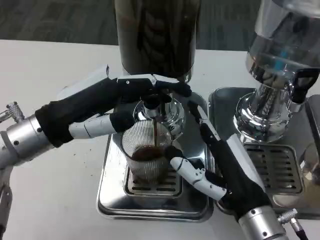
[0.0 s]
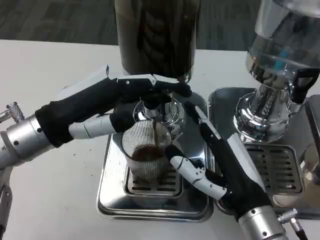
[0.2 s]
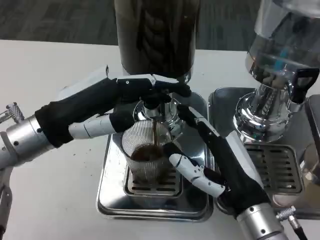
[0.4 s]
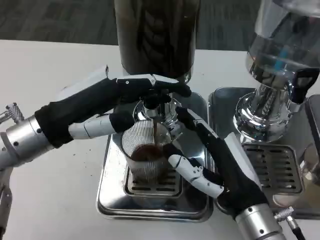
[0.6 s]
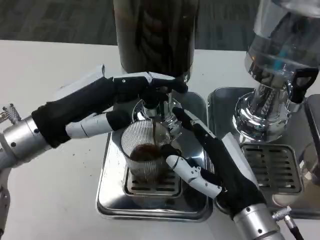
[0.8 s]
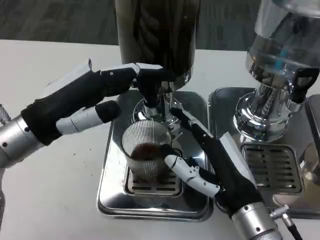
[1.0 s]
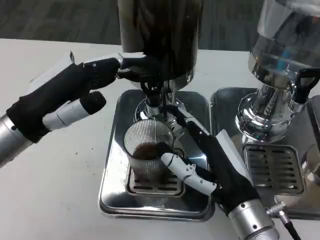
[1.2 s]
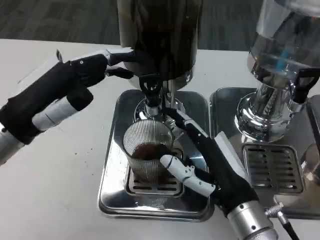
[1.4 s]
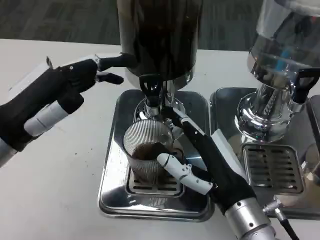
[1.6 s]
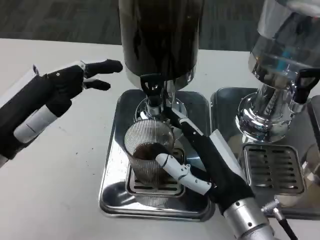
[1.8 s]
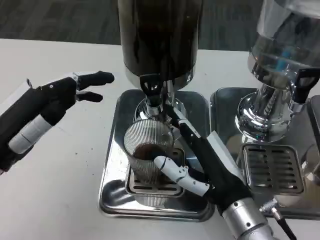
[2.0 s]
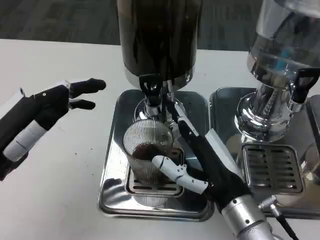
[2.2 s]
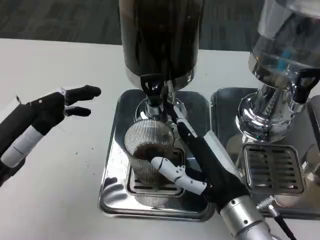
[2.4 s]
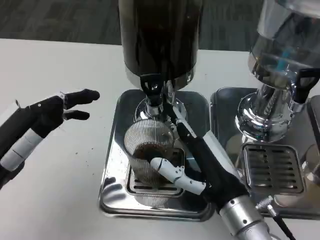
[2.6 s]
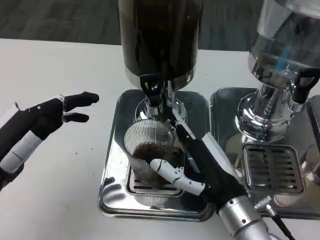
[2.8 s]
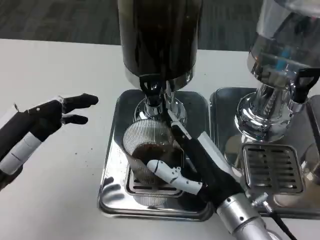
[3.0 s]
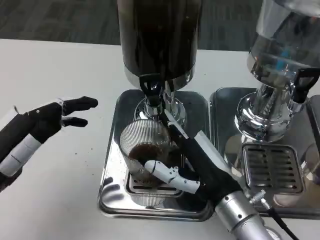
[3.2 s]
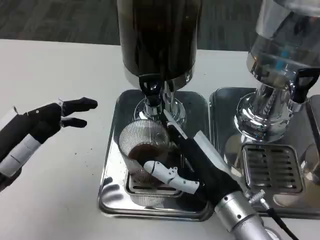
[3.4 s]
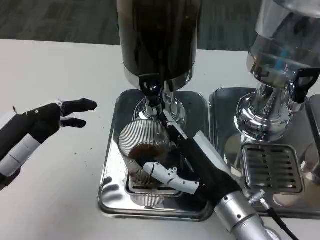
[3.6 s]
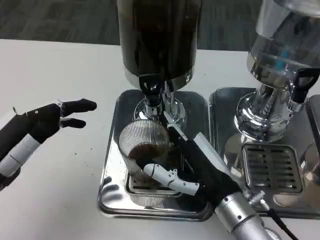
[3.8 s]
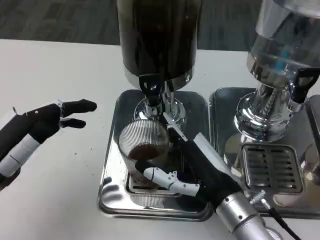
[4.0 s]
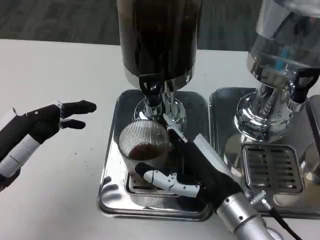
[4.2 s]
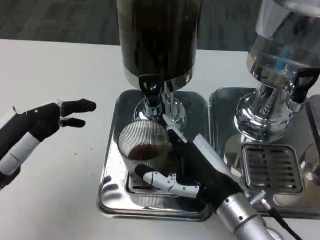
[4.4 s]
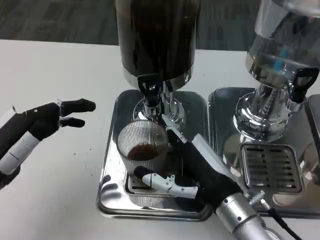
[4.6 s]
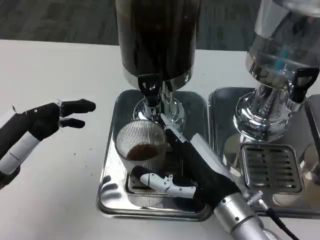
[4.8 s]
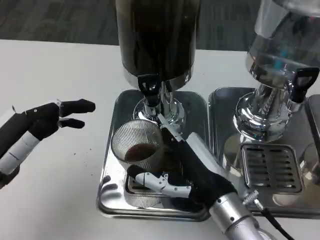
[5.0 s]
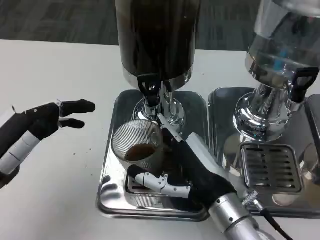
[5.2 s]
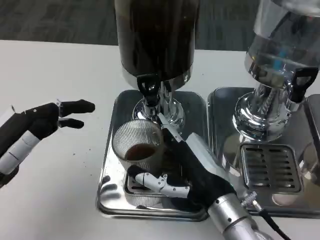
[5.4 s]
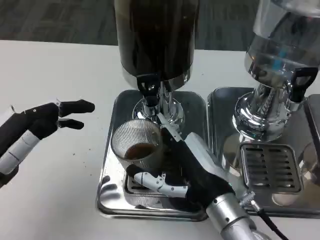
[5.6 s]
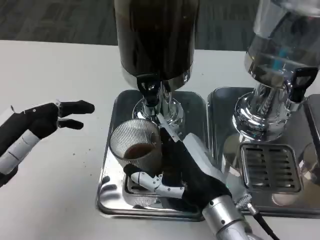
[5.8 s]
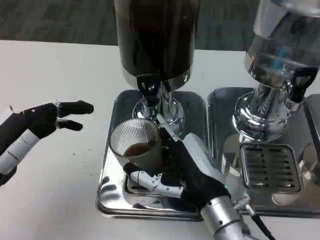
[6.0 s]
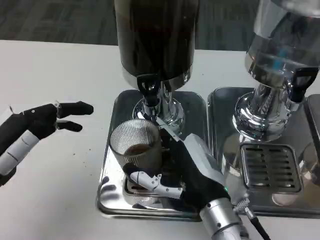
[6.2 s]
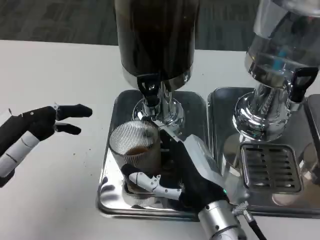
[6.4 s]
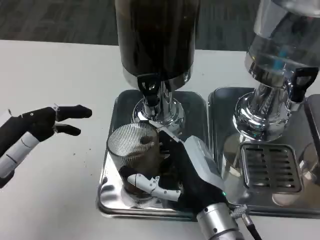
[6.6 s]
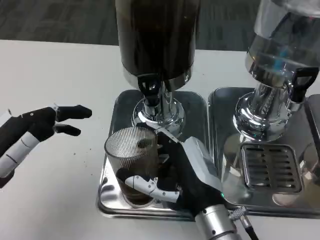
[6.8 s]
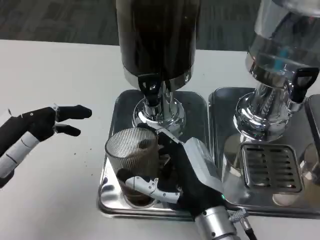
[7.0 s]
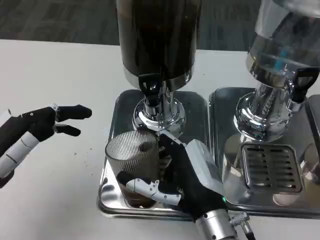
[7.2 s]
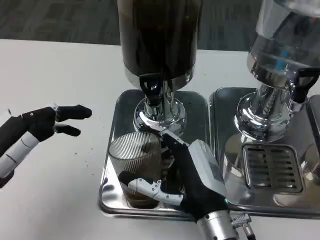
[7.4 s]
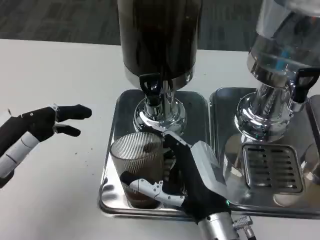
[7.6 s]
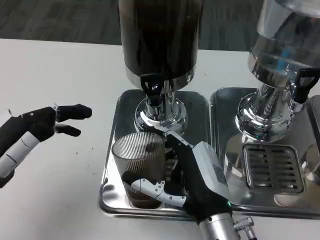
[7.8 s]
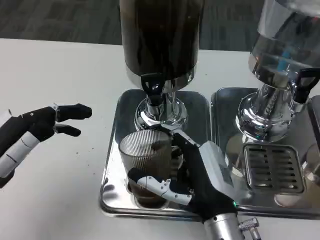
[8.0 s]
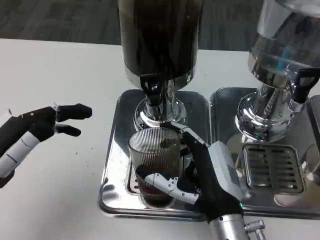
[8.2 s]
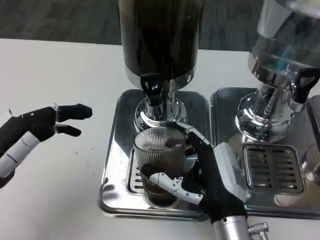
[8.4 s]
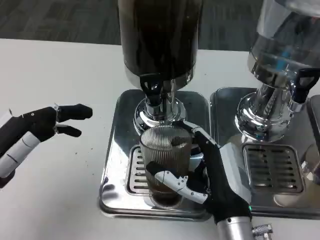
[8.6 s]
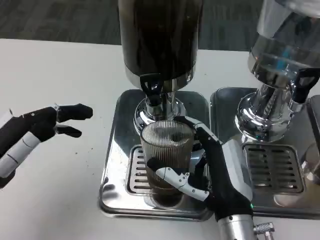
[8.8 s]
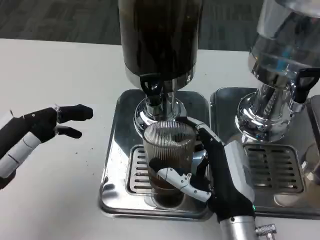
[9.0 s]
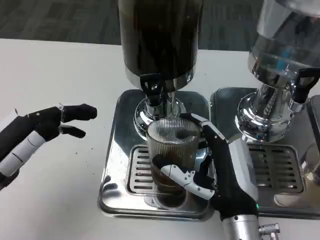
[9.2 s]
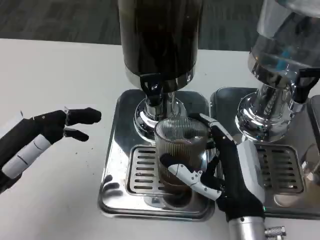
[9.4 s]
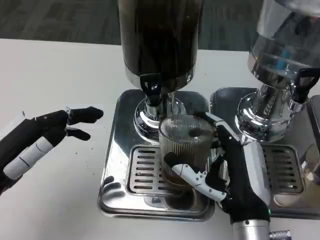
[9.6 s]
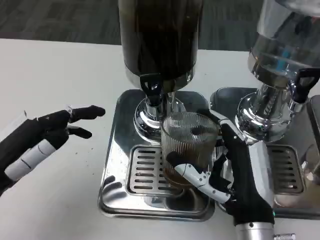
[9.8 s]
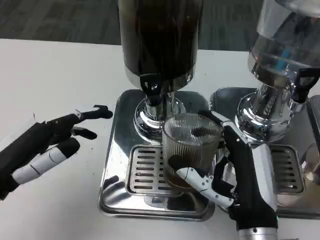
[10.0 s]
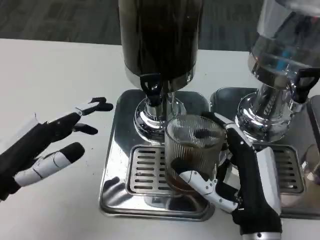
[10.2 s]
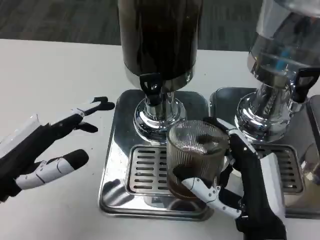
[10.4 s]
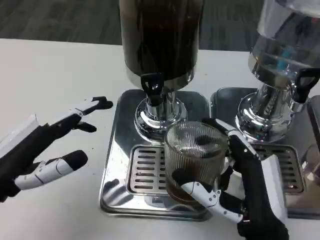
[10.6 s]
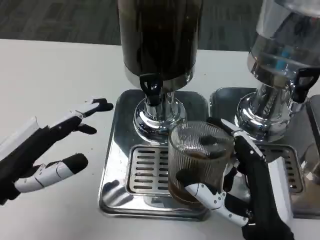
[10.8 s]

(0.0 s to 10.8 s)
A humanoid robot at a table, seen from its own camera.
Task of the whole recording: Grasp the cup under the faucet to collect the drink, then remove the cup.
1.6 s - 3.0 s: The left hand moves some 5 cm.
3.0 s - 6.2 s: The hands move only a little.
7.8 s - 9.2 s: There are only small adjustments of the hands.
9.2 s - 10.8 s: The right hand is displaced backward by some 5 cm.

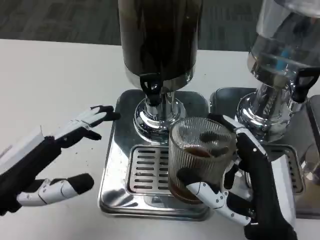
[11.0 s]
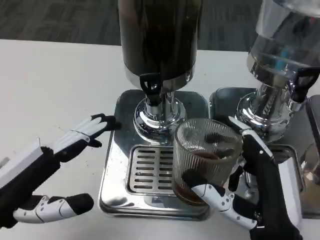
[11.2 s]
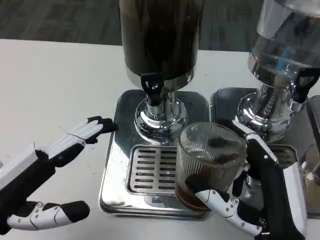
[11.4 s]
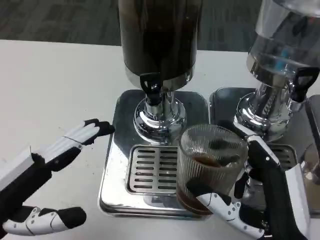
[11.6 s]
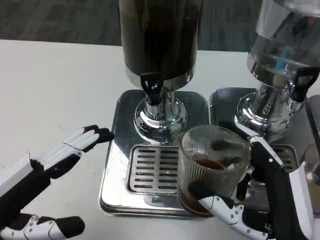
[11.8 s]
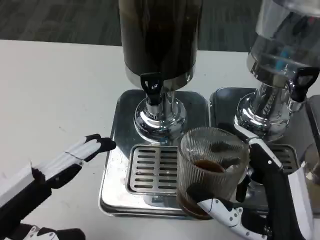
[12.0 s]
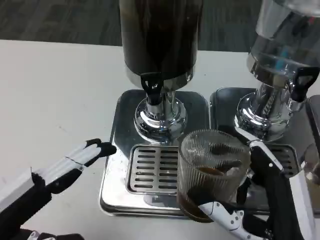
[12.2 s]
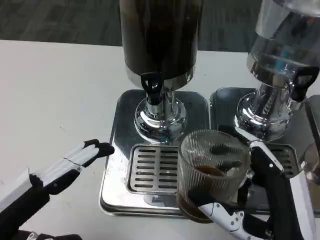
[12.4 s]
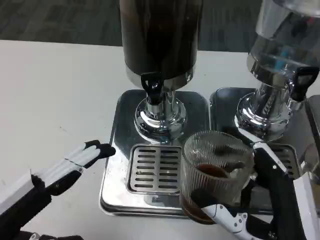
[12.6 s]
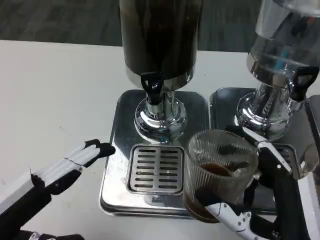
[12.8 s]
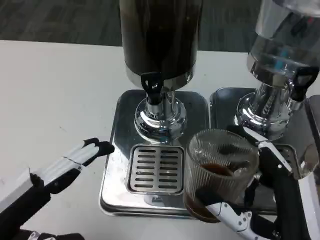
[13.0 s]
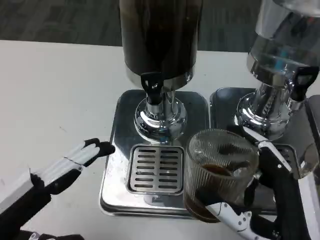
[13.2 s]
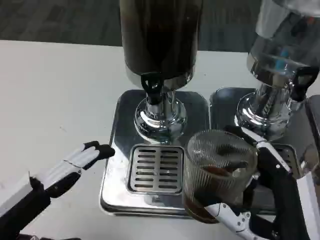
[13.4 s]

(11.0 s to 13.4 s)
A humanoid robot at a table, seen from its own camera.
Task of the whole recording: Grasp the cup under the faucet to collect the drink, then remove the cup.
11.0 s - 12.2 s: The left hand moves backward, about 5 cm.
12.2 s - 13.4 s: Neither hand changes place.

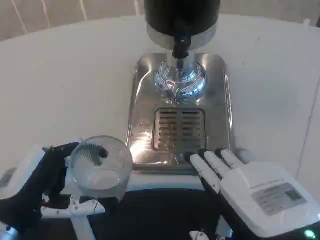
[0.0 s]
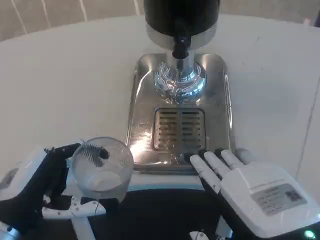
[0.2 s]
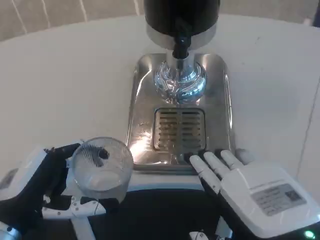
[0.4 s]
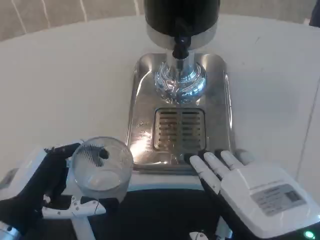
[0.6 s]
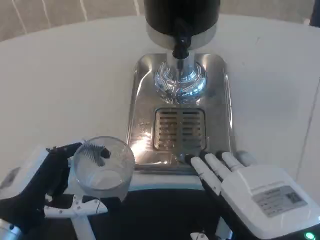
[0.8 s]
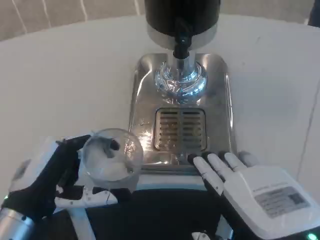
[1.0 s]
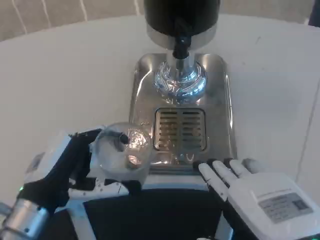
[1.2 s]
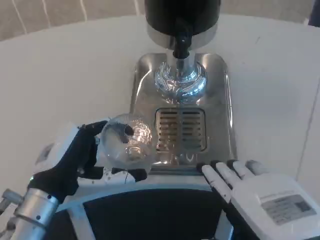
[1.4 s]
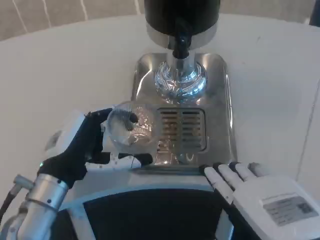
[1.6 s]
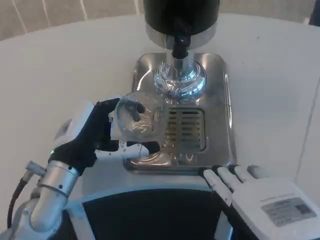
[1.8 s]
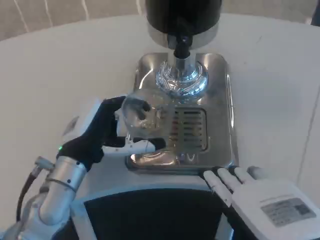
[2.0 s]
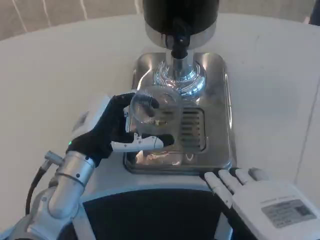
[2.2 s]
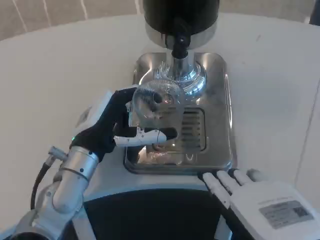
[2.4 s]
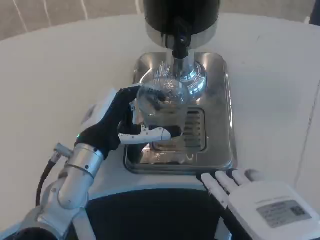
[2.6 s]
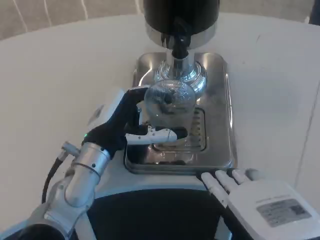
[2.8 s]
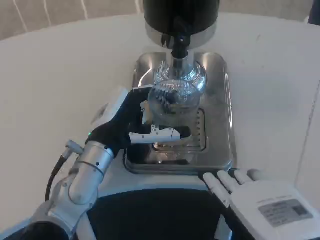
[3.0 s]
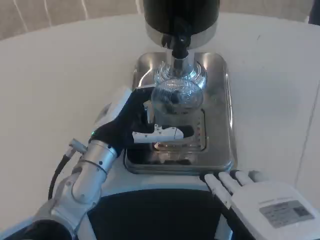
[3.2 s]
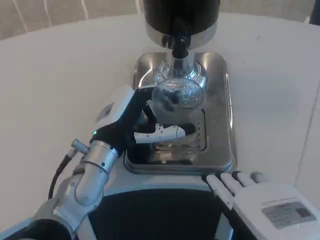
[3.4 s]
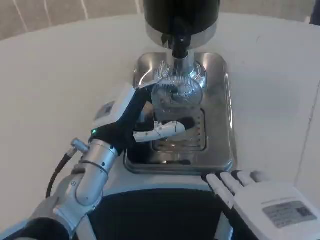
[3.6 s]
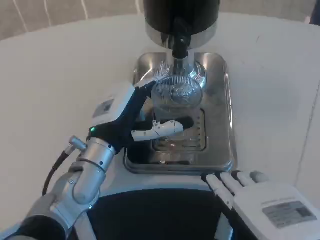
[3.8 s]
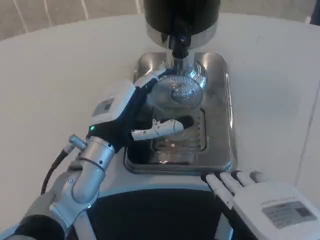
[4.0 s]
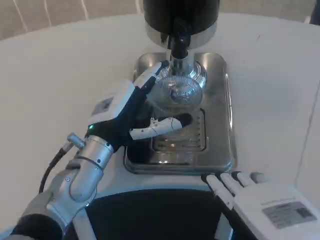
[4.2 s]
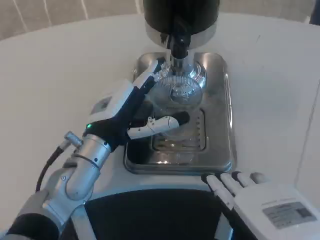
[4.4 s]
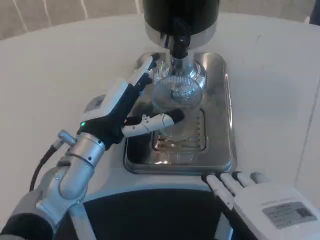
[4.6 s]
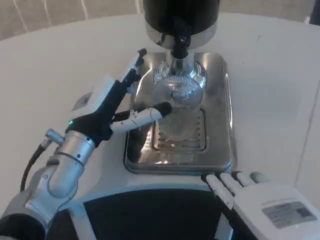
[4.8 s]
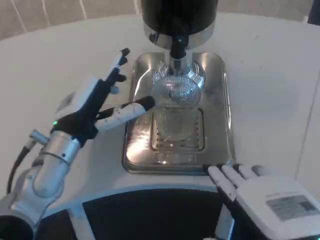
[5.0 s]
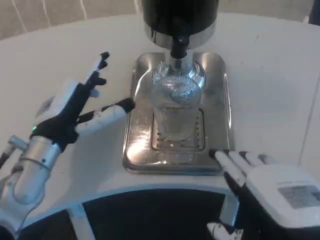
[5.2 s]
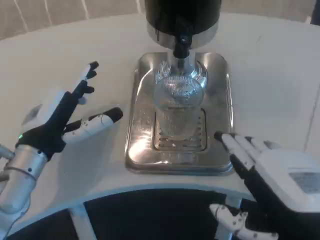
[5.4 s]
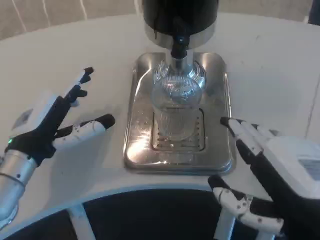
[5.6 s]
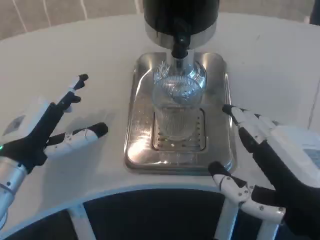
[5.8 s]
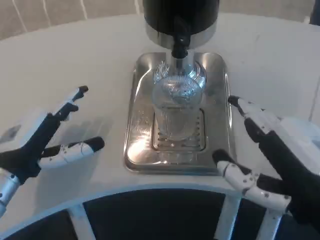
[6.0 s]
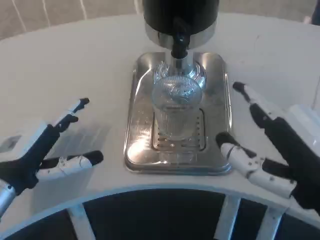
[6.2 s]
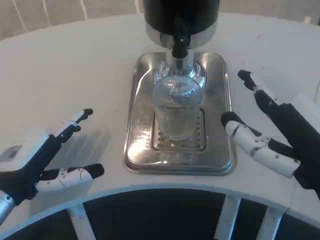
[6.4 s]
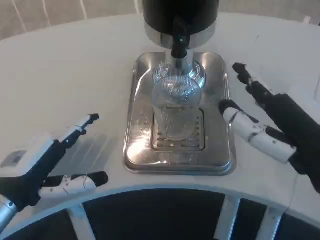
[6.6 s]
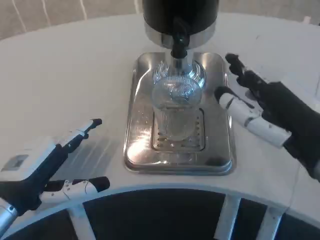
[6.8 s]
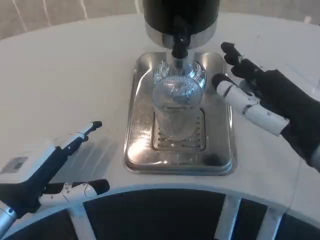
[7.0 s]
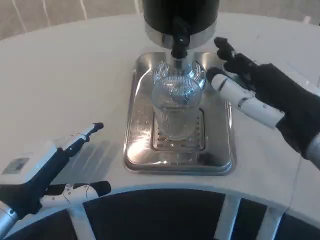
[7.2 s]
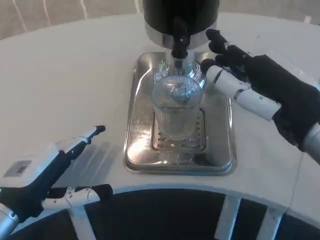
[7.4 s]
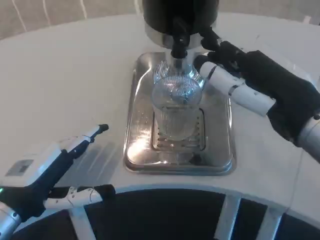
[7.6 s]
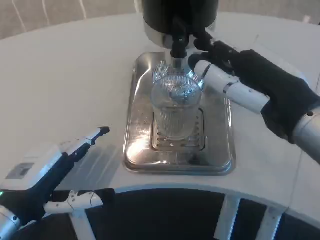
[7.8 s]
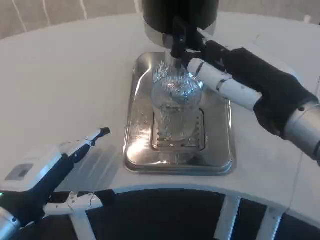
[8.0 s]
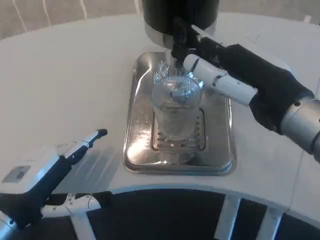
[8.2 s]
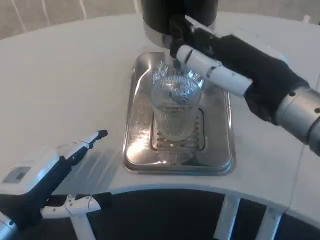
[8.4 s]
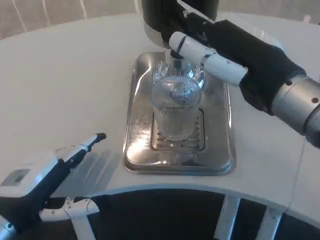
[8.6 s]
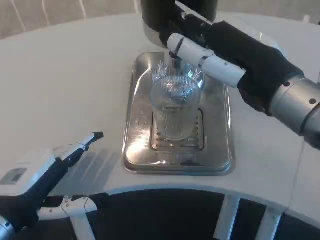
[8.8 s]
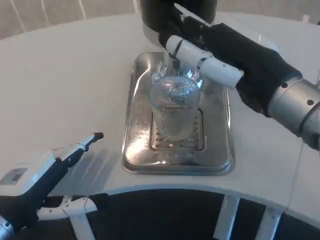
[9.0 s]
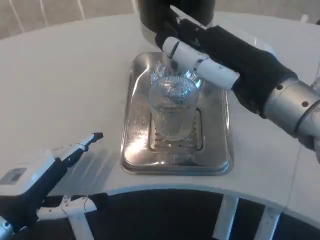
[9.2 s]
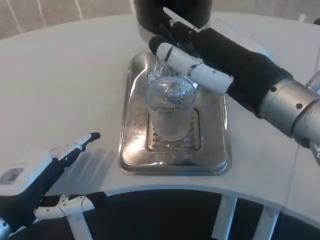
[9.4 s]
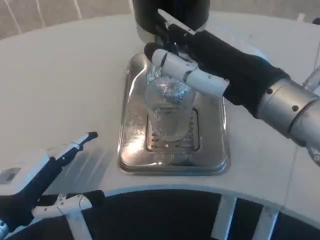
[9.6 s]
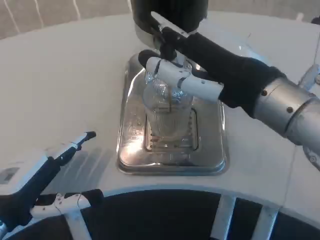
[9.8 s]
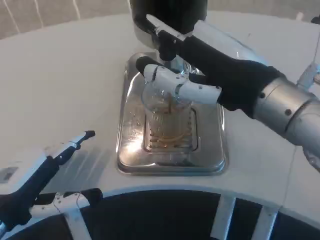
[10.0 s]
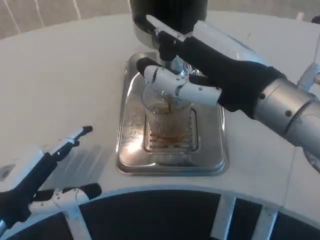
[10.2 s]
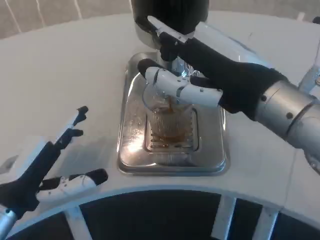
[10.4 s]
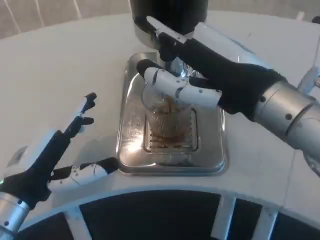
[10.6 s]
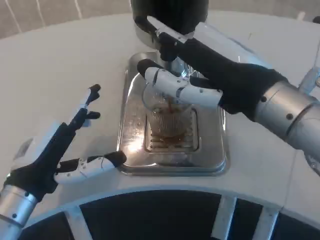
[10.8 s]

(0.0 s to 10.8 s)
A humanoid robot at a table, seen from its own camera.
Task of the whole recording: Grasp the cup under the faucet to collect the drink, then remove the cup.
0.0 s - 1.6 s: The left hand goes roughly 10 cm forward.
1.6 s - 3.0 s: The left hand moves to the right, roughly 5 cm.
3.0 s - 4.6 s: The hands make only small movements.
4.6 s - 6.2 s: The right hand moves about 5 cm, while the left hand is displaced to the left and backward by roughly 15 cm.
6.2 s - 7.8 s: The right hand is displaced forward by approximately 10 cm.
7.8 s - 9.2 s: There are only small adjustments of the hands.
